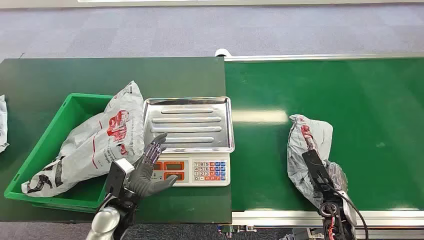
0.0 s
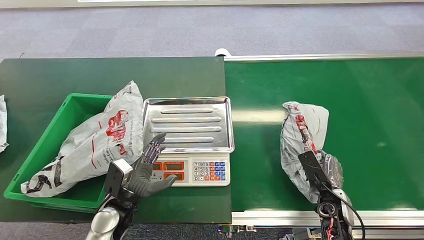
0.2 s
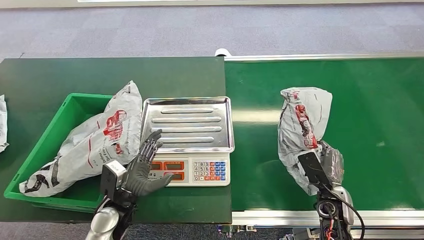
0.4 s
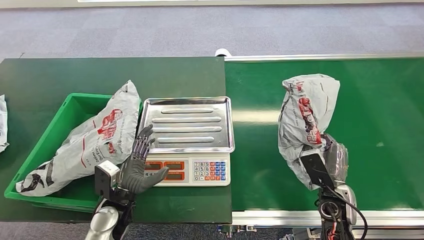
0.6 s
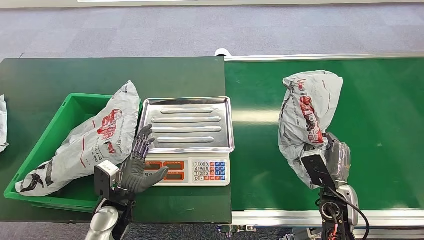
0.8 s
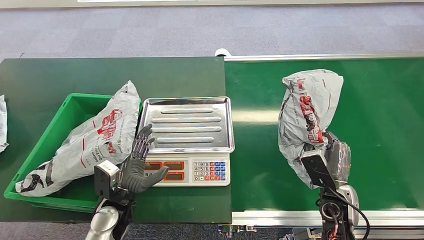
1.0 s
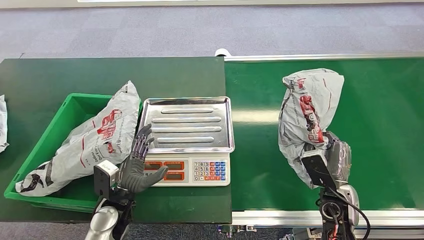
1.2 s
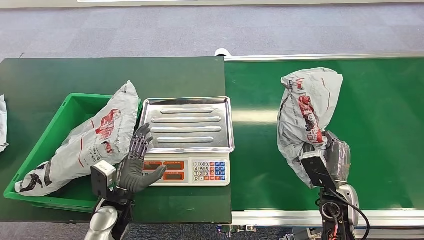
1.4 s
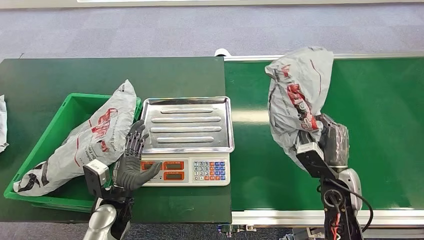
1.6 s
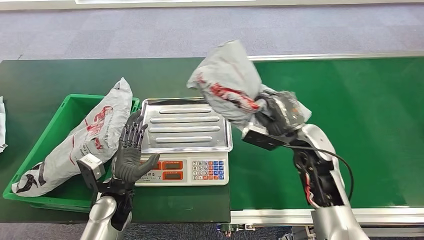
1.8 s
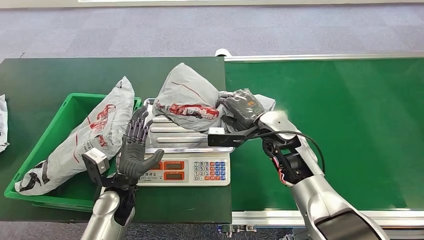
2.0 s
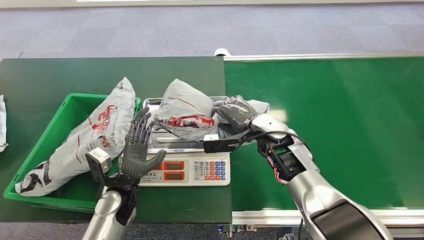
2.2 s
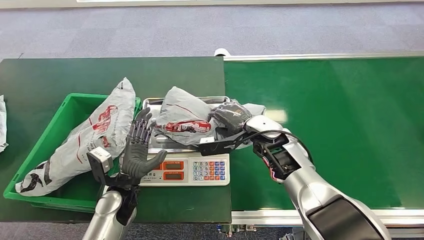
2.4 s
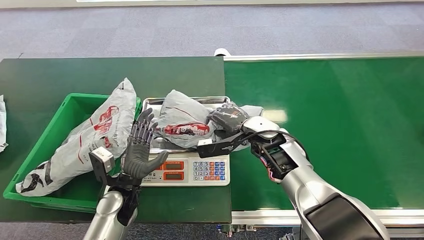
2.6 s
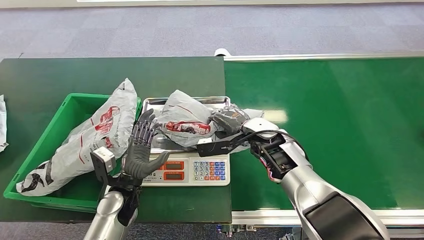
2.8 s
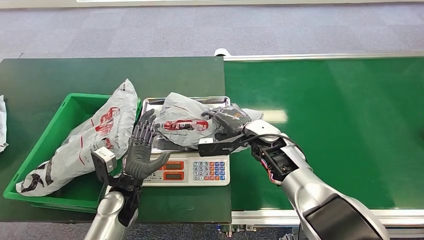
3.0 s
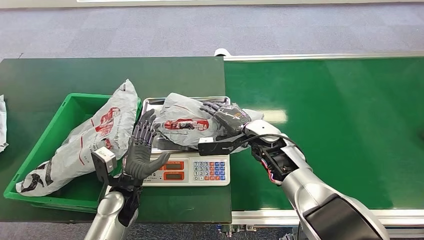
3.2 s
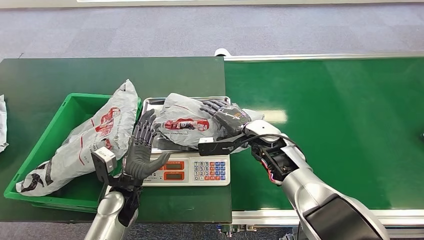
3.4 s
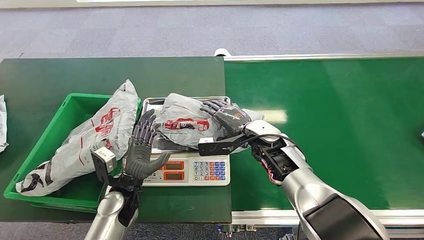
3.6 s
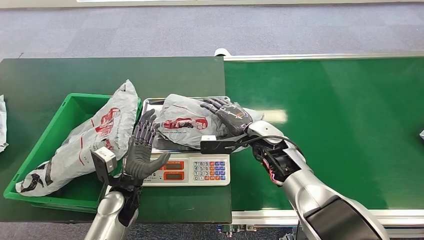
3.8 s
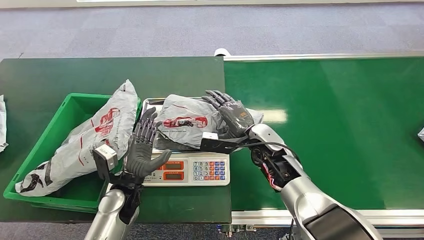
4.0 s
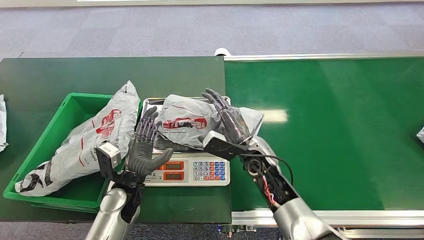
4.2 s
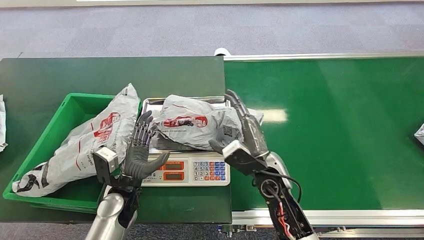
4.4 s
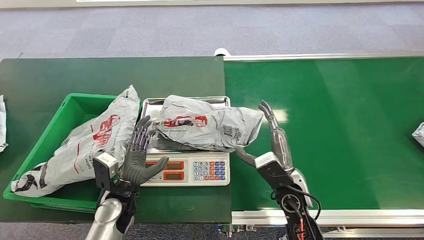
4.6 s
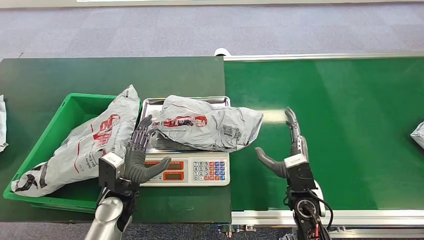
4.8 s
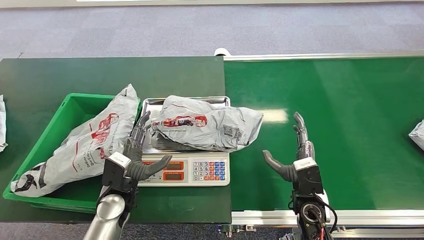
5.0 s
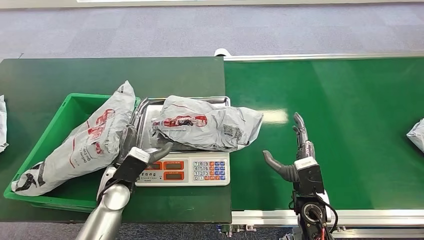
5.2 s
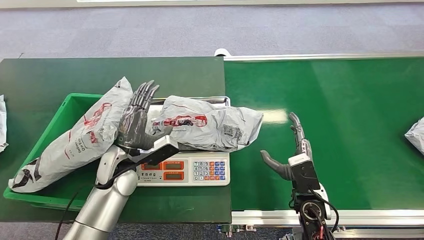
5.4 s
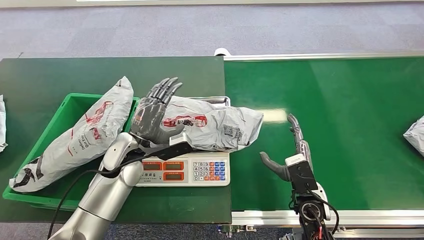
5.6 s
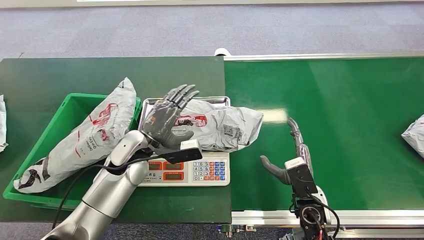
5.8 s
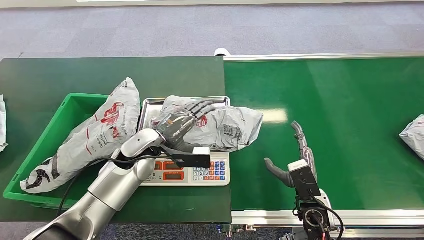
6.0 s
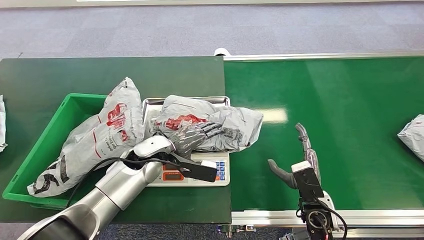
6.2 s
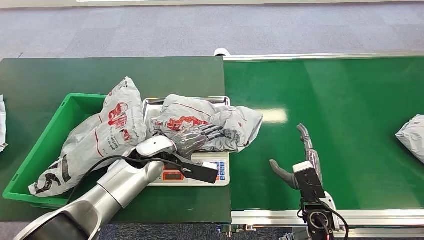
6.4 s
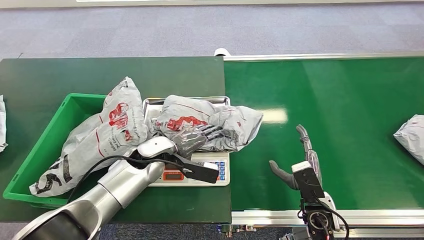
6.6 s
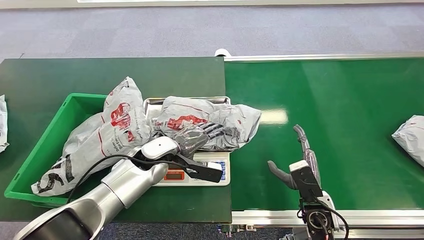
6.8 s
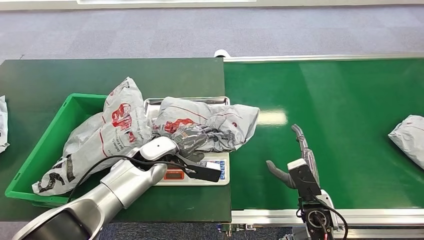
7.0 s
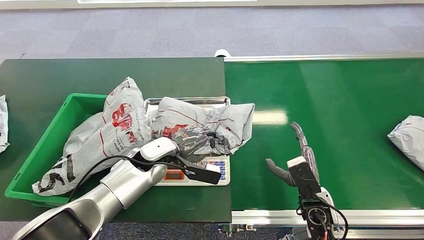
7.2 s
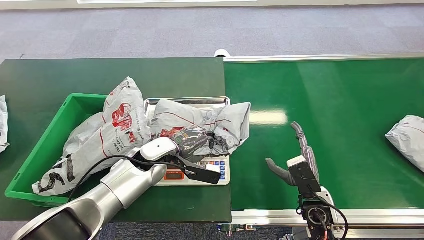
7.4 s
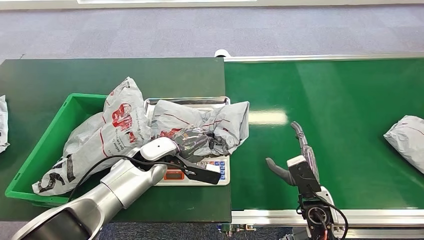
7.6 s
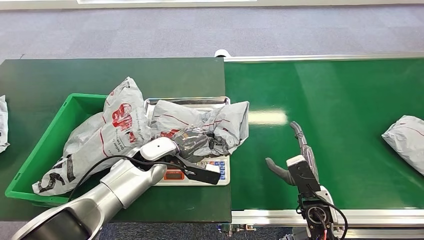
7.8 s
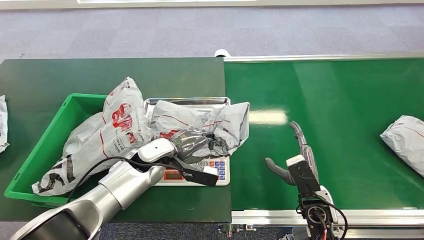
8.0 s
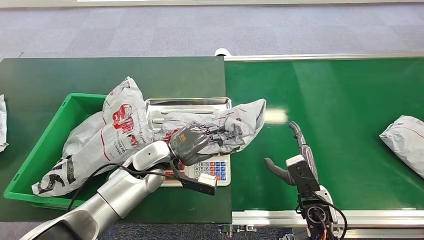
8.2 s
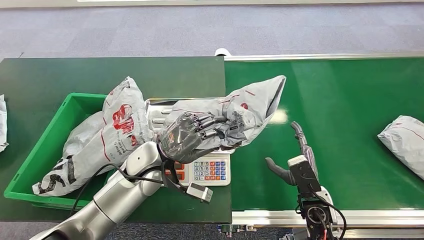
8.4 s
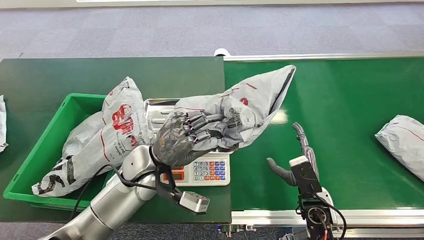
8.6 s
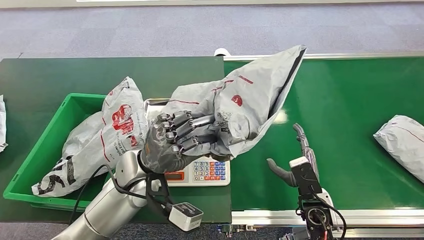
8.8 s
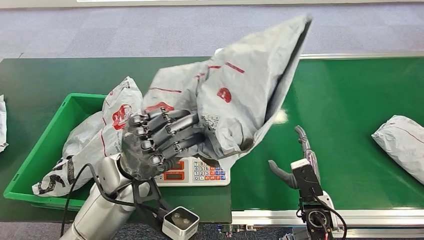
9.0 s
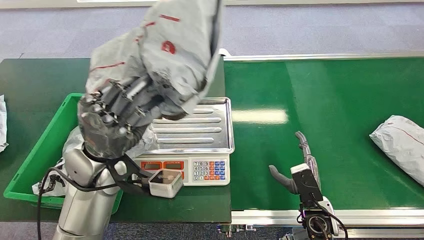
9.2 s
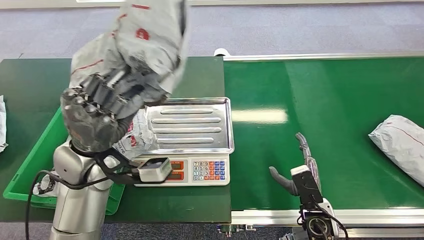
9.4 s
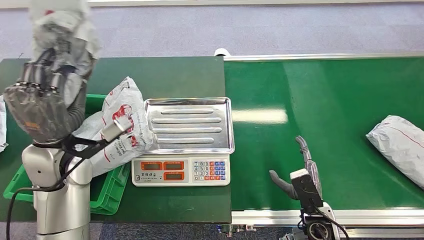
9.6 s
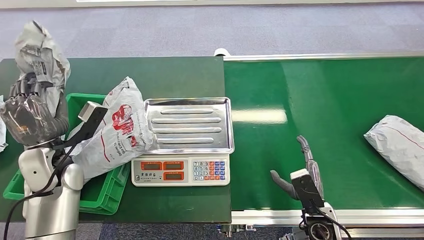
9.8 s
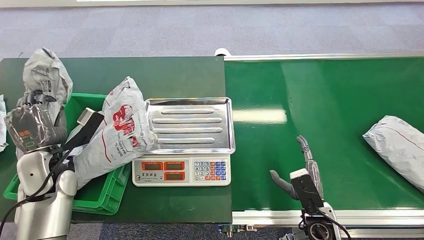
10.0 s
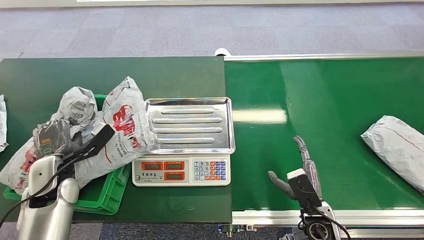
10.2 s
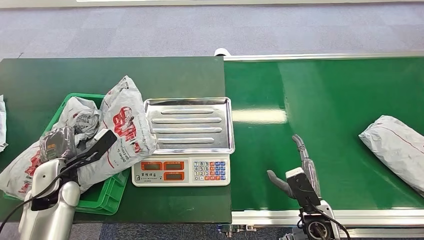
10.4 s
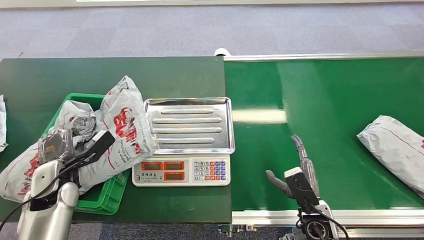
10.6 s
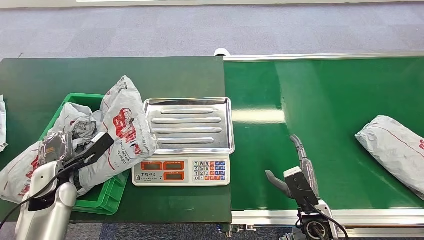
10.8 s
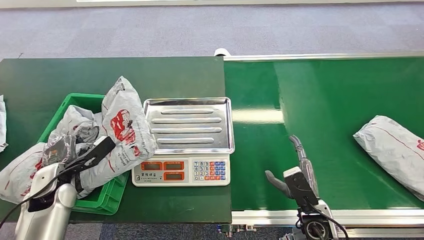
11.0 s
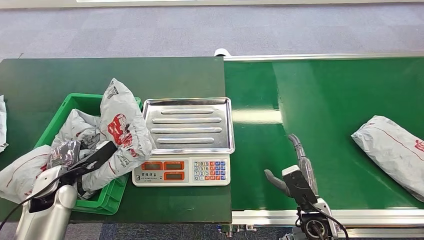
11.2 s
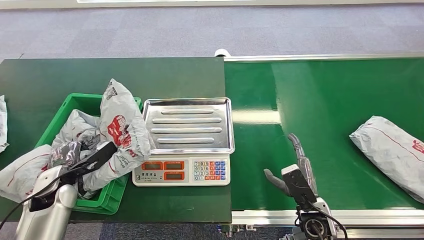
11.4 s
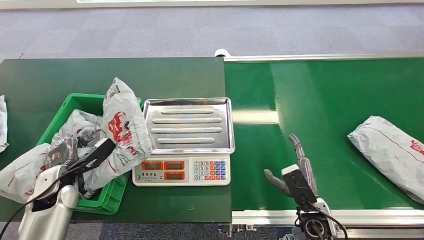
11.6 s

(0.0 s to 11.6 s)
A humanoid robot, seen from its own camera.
Step, 0.0 s - 1.4 s: Pick up the package from the conveyor belt.
Step, 1.8 s - 3.2 s: Place the package onto the inbound machine.
Step, 6.8 s - 8.6 s: Pick up the package from the inbound machine.
Step, 9.8 s - 11.6 s: Place the package into the parcel locker.
2.8 s - 4.4 s: The right hand is displaced backward by approximately 10 cm.
10.2 s - 11.6 s: The left hand goes about 5 cm downward.
